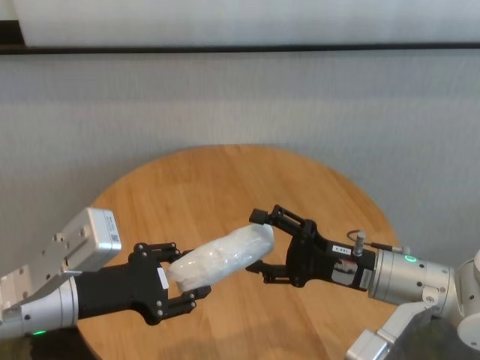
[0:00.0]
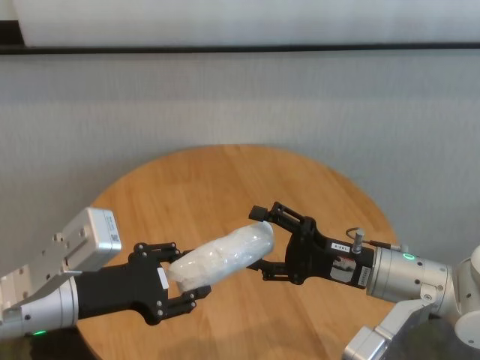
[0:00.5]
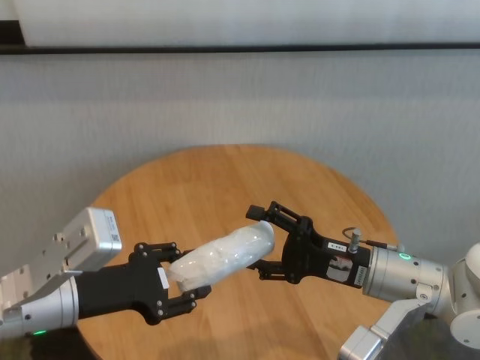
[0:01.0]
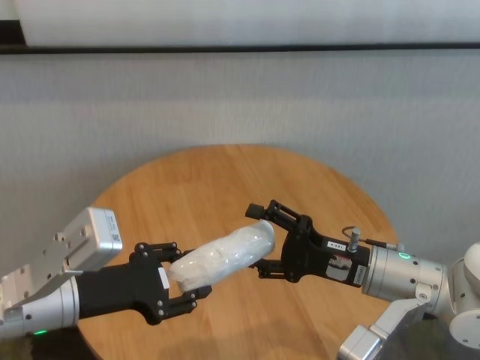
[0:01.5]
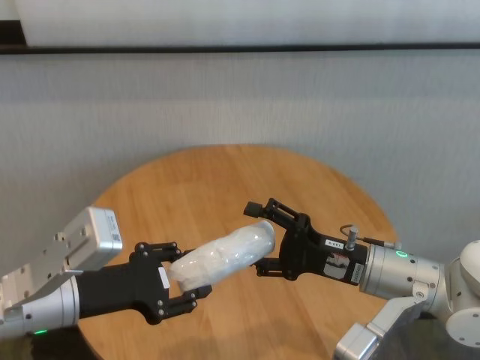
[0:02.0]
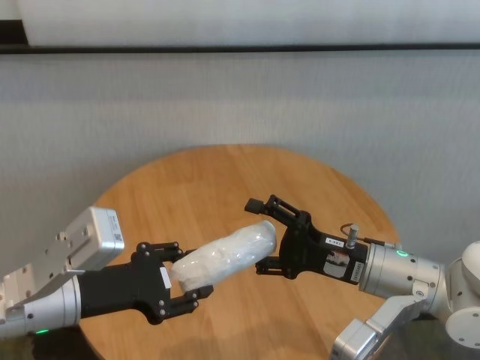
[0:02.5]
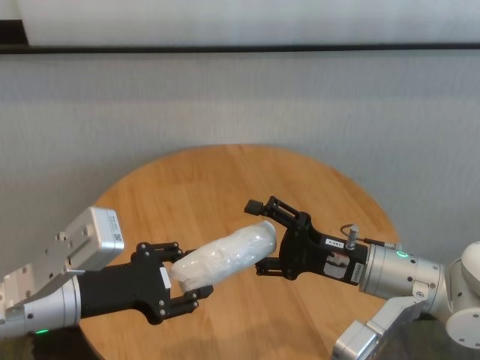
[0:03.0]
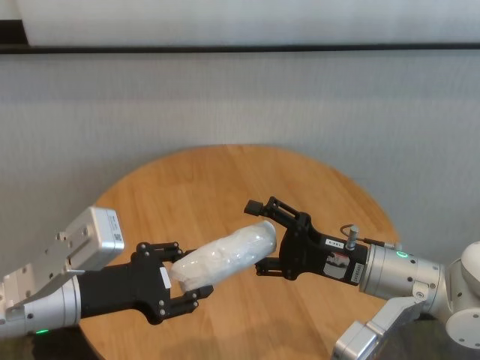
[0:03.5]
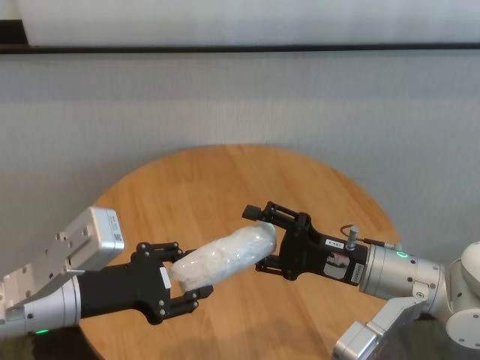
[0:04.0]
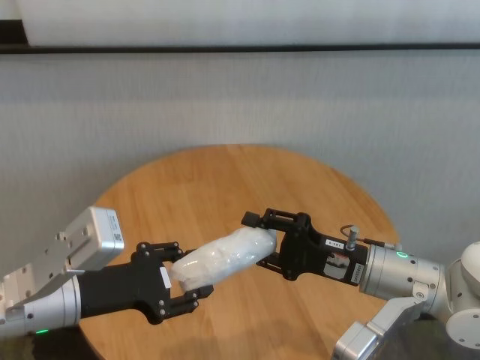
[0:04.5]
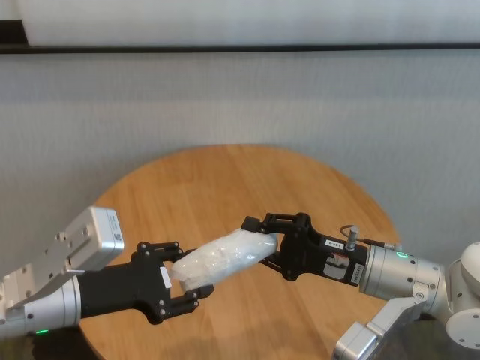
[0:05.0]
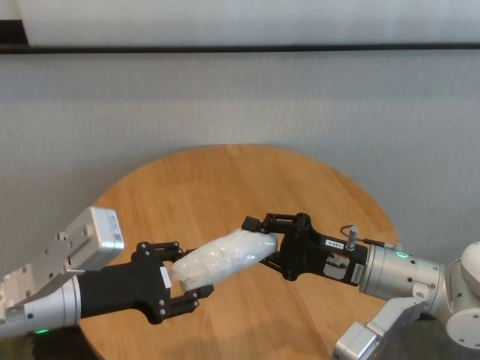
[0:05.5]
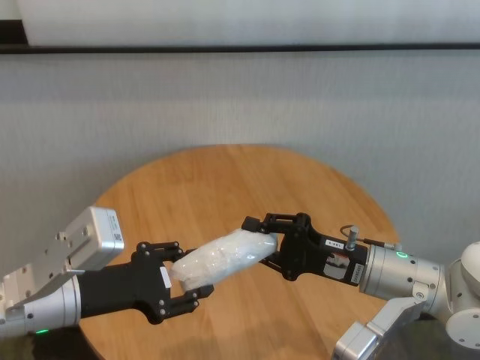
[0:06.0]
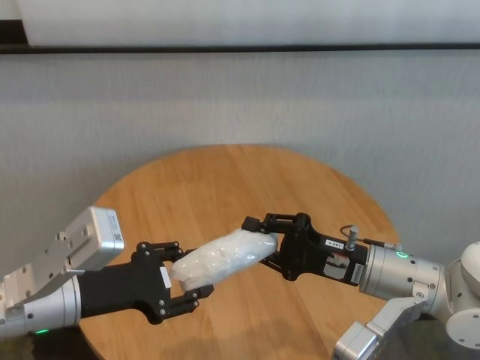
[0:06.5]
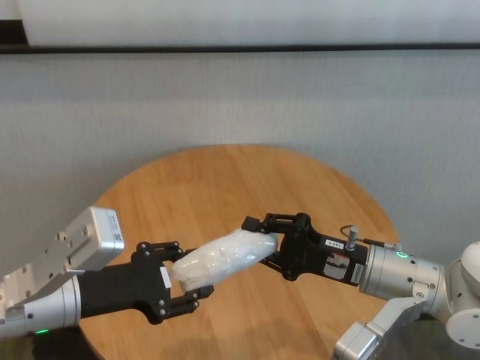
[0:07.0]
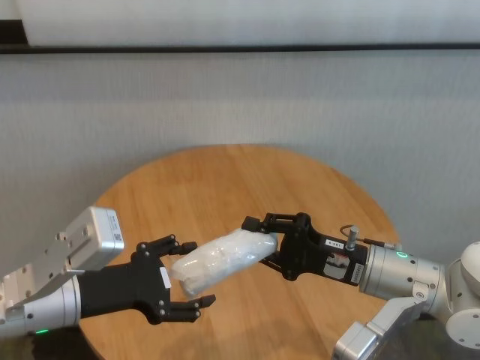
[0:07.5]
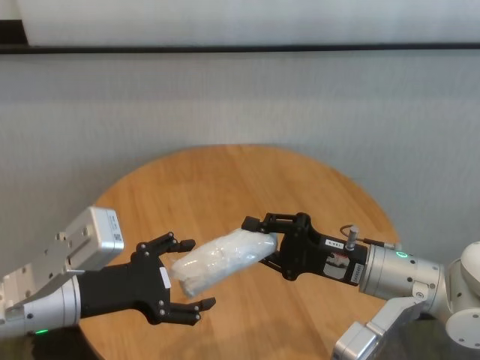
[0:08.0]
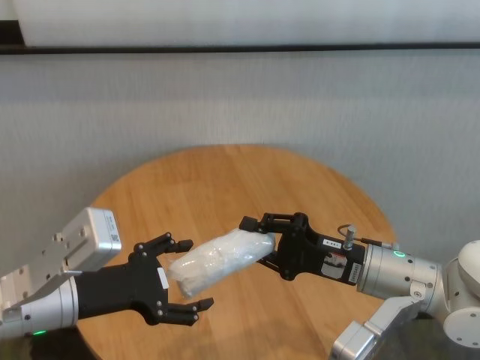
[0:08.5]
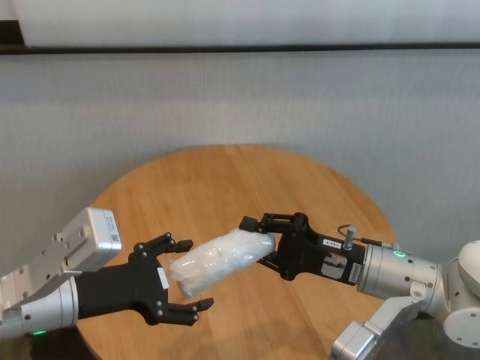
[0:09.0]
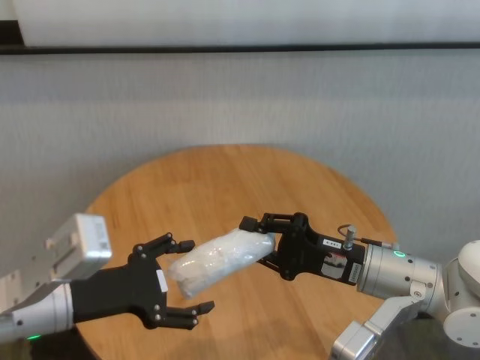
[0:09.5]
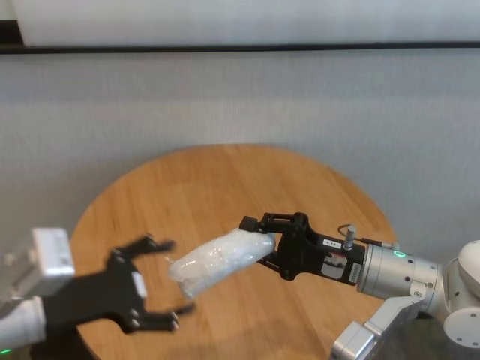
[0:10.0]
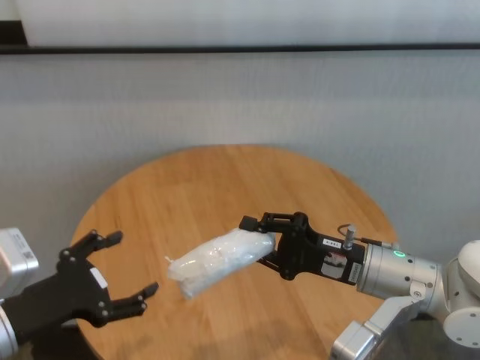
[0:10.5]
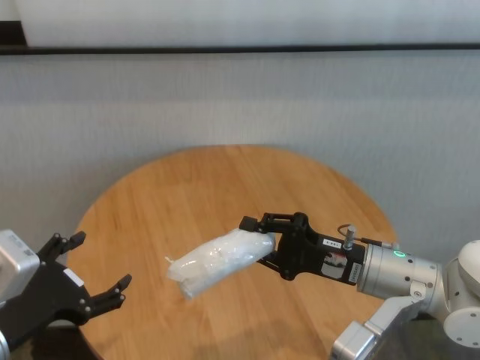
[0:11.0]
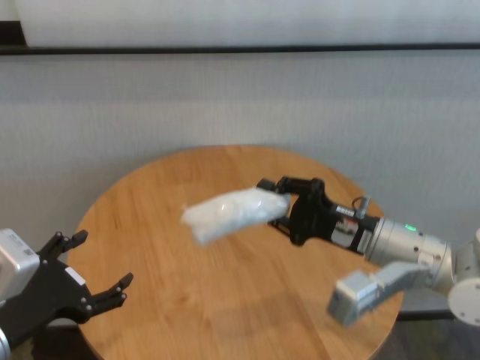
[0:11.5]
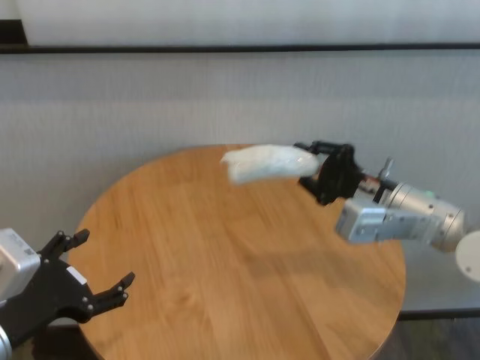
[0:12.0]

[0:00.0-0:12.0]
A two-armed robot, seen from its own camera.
Task of the whole recording: One hand took the sandbag from the other hand and placed it on the table.
Step, 0:00.0 to 0:07.5: Pass the paper ball to the right gripper.

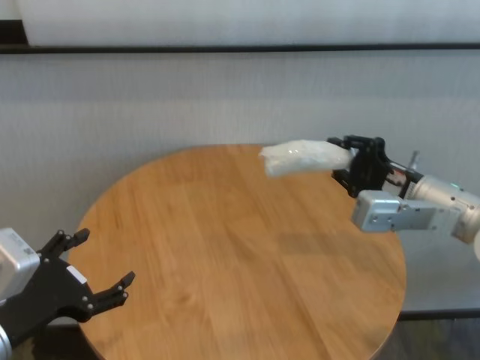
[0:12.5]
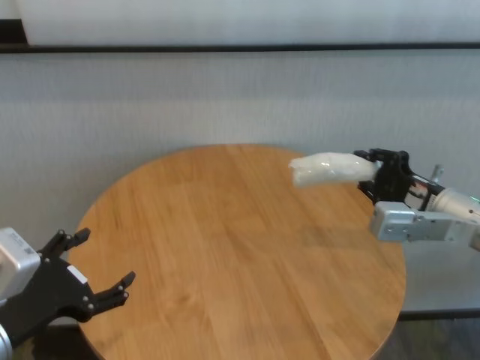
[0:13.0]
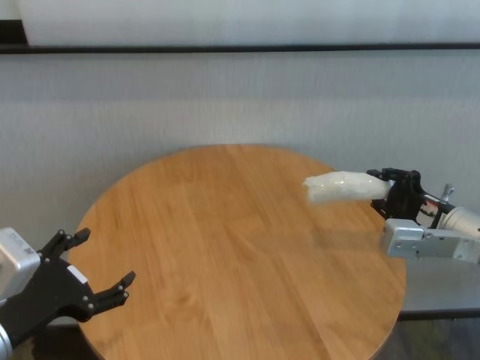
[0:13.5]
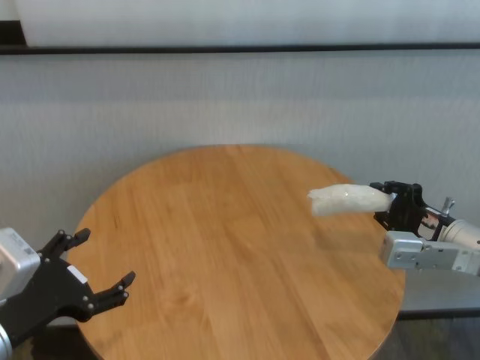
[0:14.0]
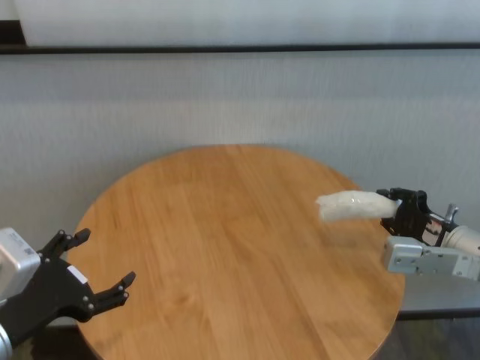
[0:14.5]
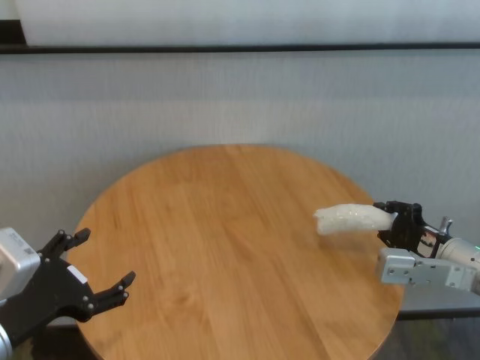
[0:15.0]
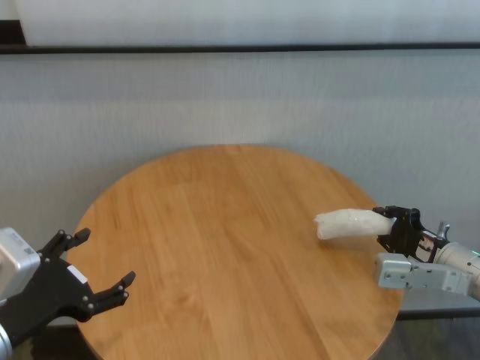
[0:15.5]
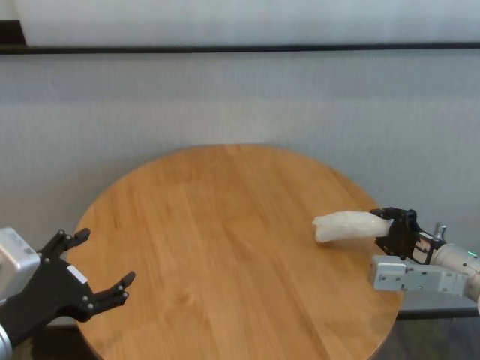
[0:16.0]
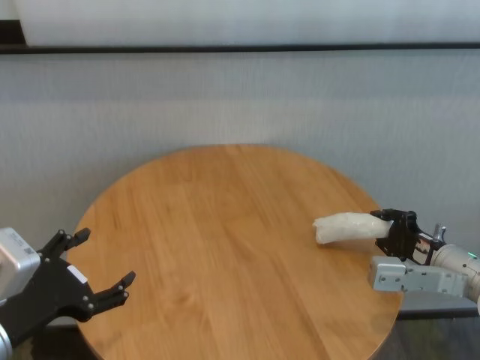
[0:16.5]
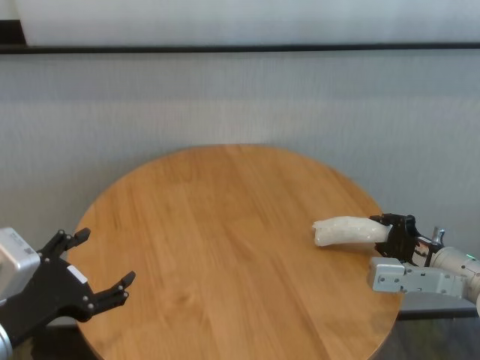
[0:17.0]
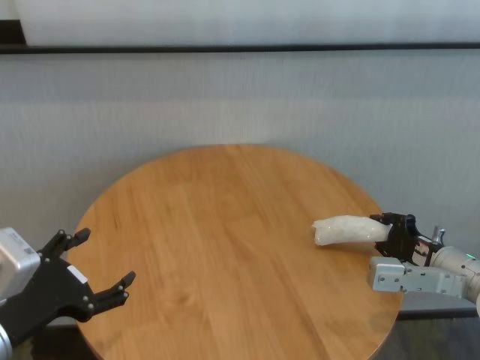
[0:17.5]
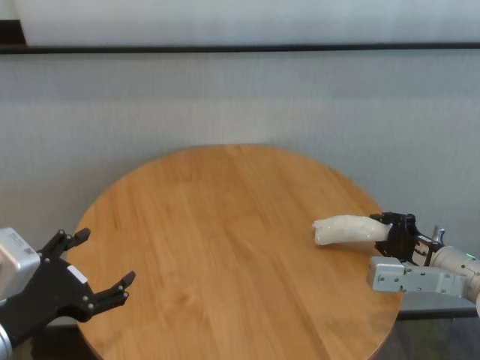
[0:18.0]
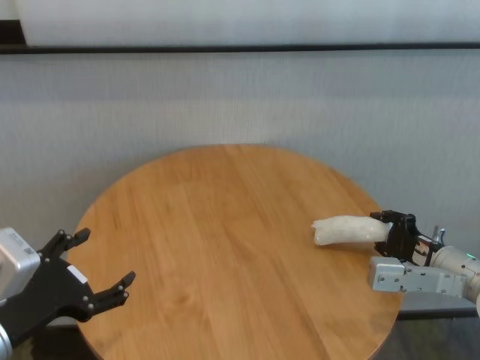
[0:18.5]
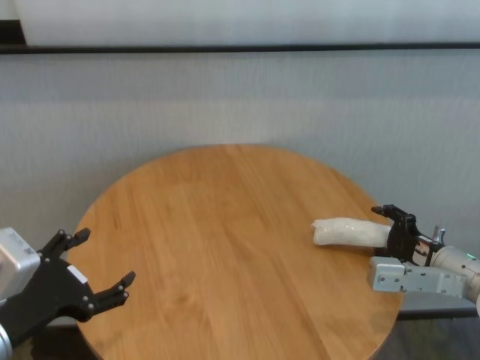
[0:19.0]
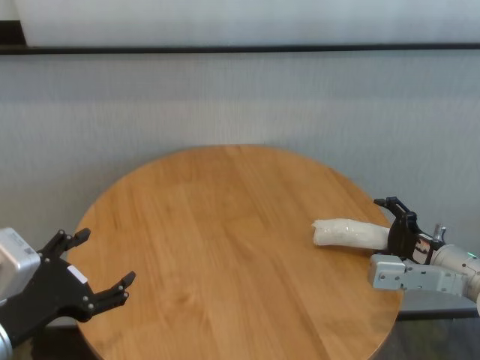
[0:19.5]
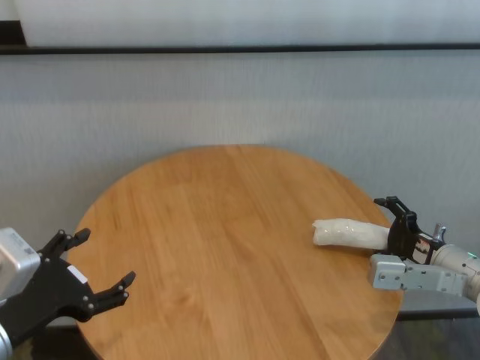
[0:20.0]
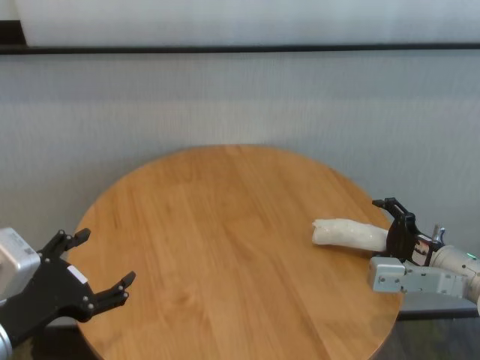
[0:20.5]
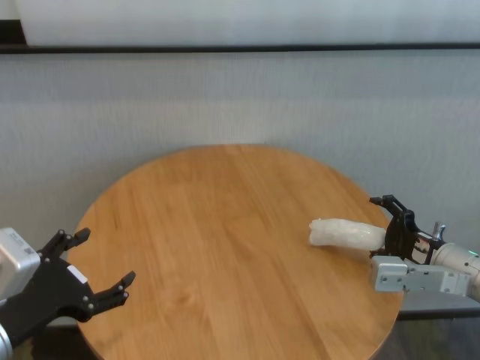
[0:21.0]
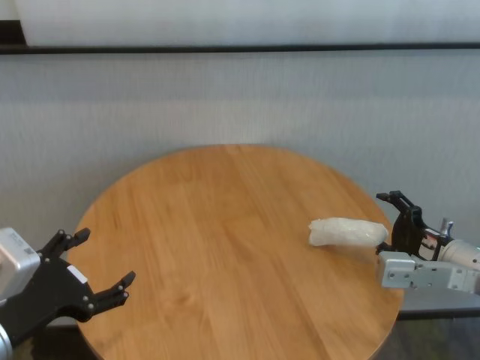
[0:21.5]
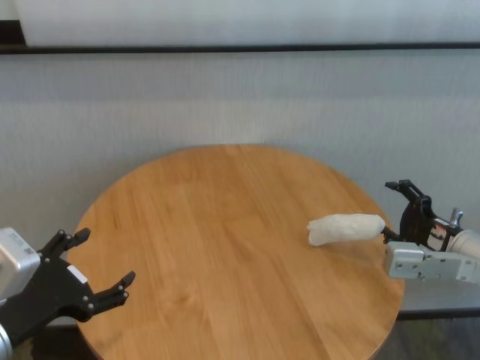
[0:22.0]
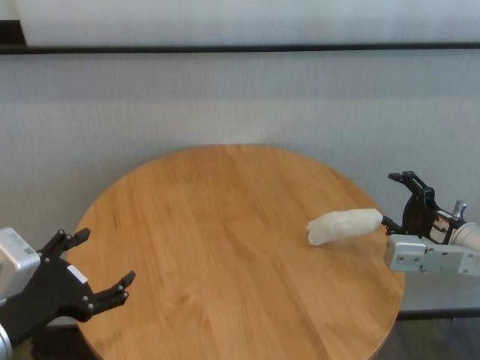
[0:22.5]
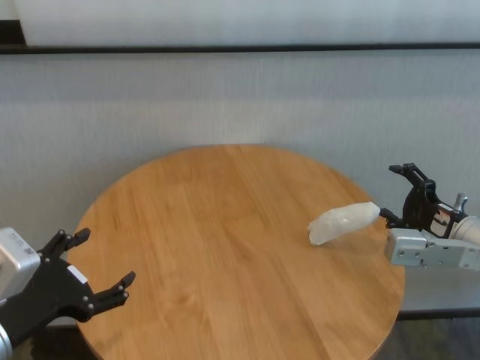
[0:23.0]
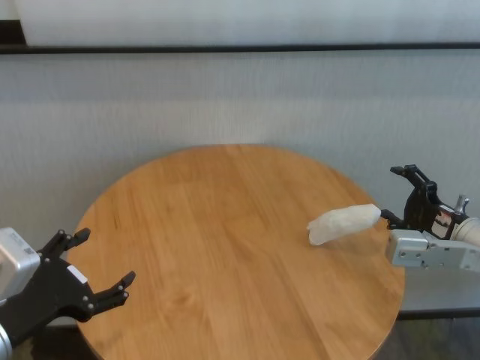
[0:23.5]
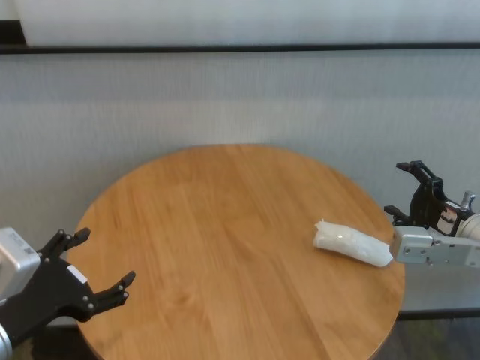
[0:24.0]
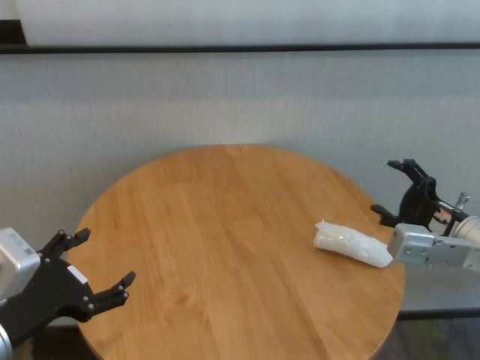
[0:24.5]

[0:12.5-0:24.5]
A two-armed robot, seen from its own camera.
Task of the whole recording: One hand took the sandbag from the other hand and placed it on the table.
Step, 0:12.5 to 0:23.5: Place the paper ball on the table with right gripper.
